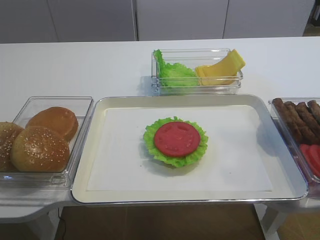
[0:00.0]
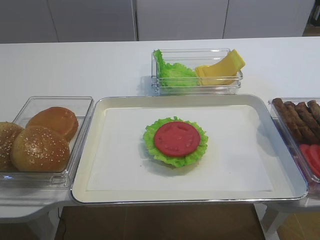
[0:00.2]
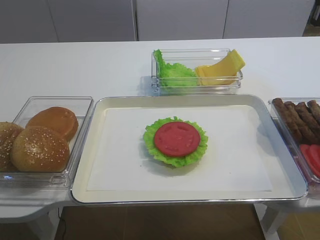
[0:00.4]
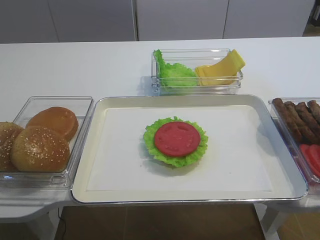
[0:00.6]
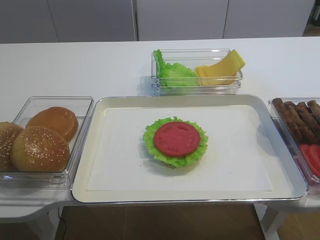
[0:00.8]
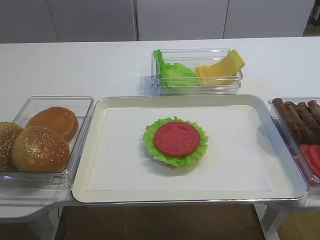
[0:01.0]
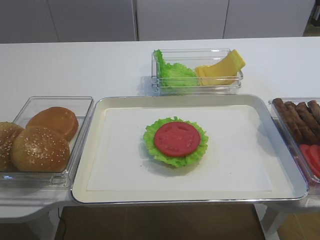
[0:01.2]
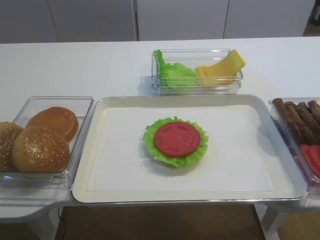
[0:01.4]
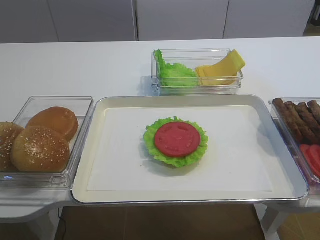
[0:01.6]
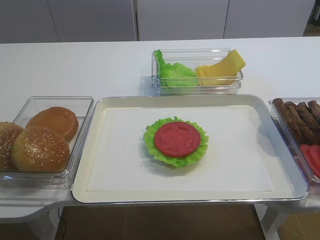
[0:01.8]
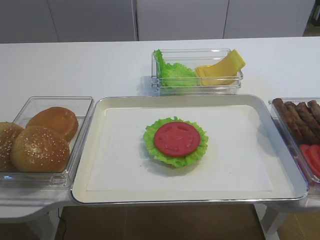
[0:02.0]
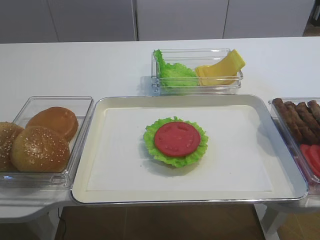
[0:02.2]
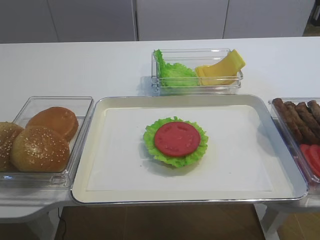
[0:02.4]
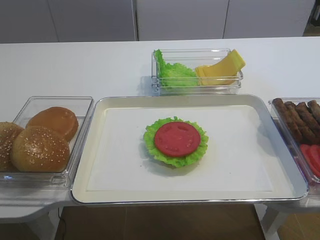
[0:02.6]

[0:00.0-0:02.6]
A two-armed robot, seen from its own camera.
0:01.2 to 0:02.6: Neither gripper changes place.

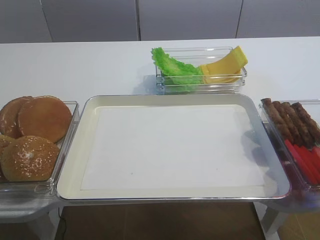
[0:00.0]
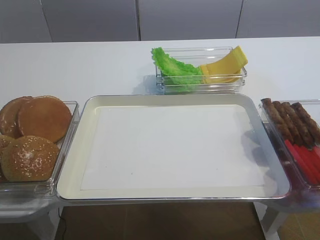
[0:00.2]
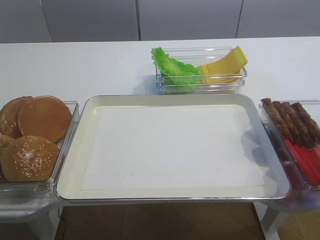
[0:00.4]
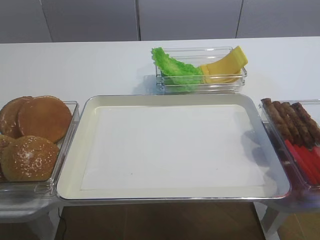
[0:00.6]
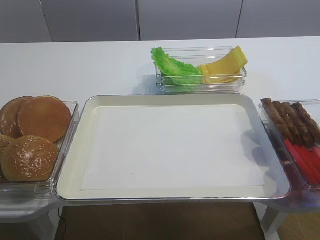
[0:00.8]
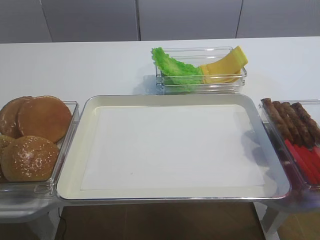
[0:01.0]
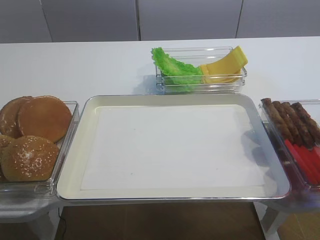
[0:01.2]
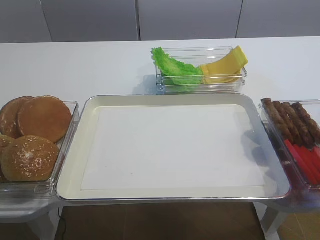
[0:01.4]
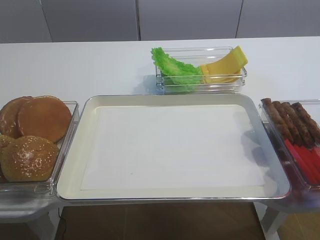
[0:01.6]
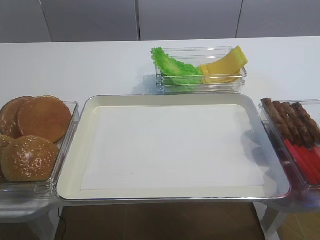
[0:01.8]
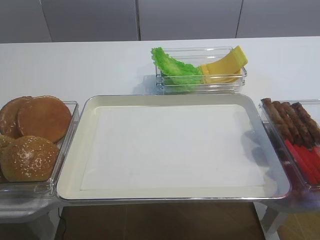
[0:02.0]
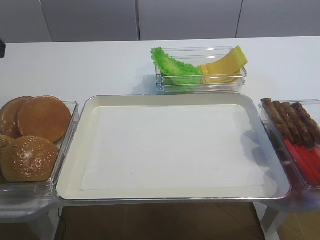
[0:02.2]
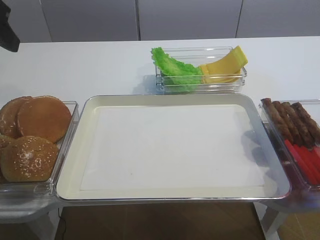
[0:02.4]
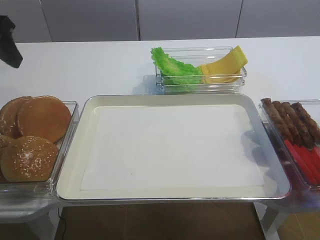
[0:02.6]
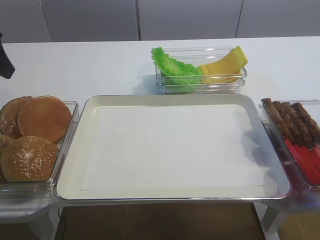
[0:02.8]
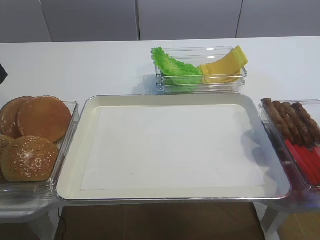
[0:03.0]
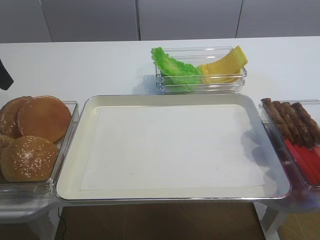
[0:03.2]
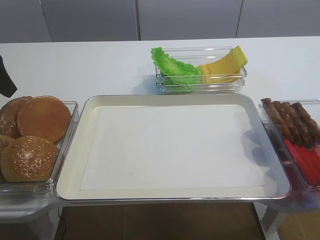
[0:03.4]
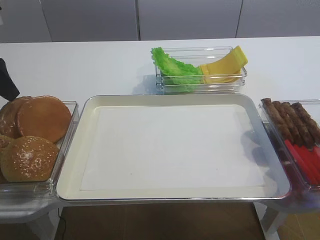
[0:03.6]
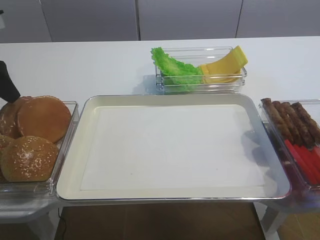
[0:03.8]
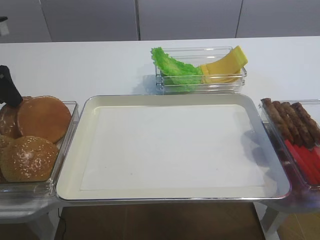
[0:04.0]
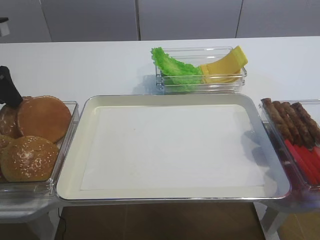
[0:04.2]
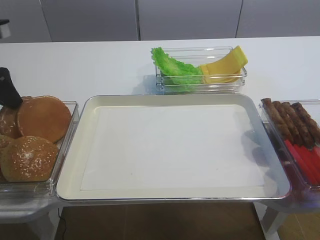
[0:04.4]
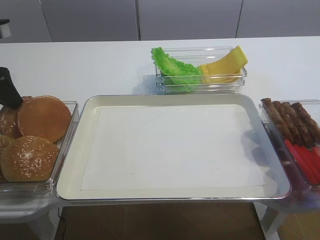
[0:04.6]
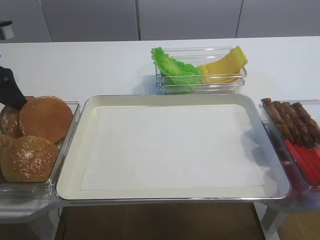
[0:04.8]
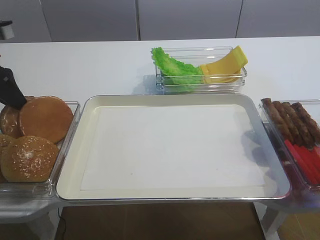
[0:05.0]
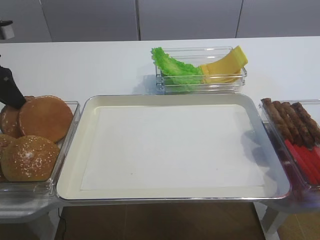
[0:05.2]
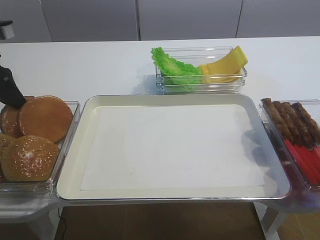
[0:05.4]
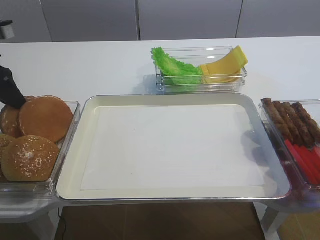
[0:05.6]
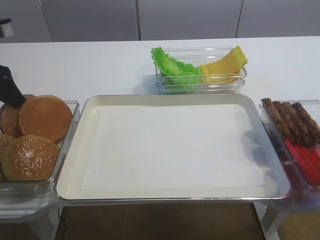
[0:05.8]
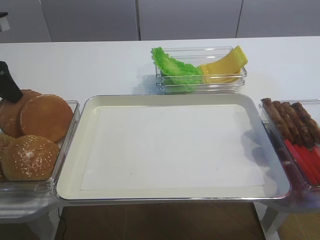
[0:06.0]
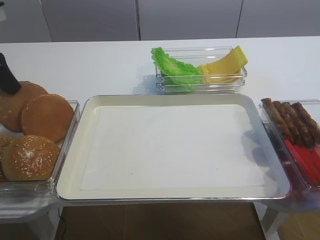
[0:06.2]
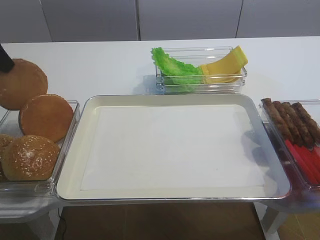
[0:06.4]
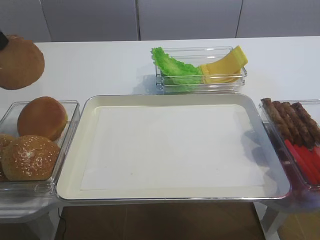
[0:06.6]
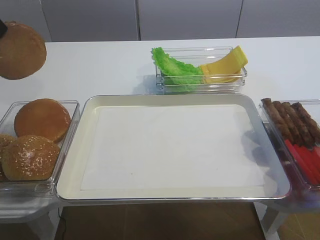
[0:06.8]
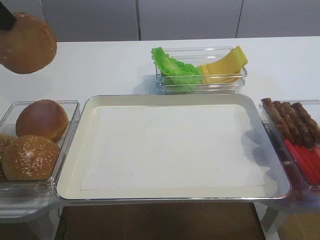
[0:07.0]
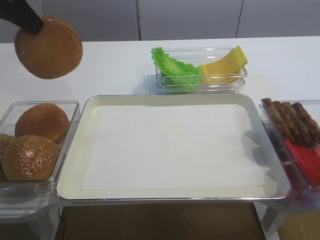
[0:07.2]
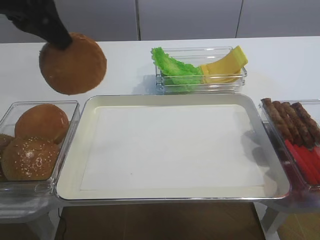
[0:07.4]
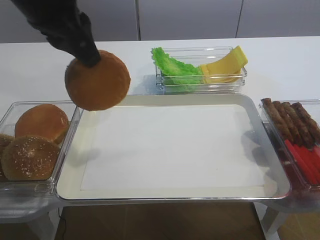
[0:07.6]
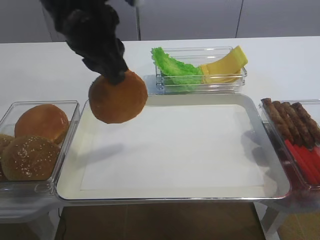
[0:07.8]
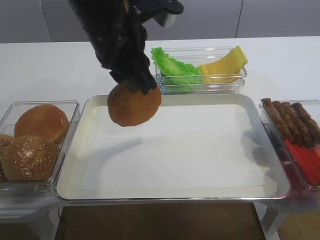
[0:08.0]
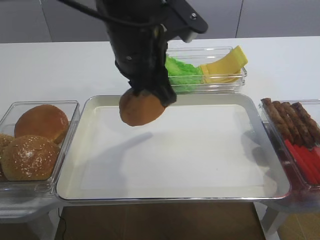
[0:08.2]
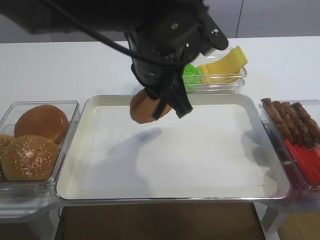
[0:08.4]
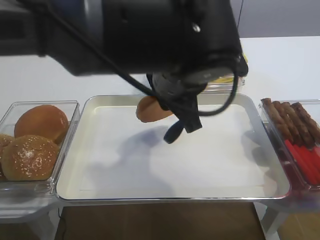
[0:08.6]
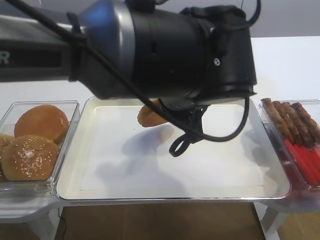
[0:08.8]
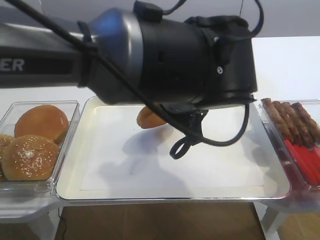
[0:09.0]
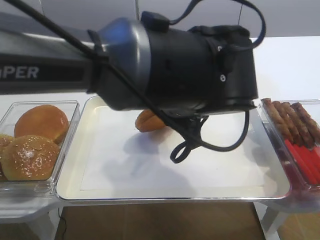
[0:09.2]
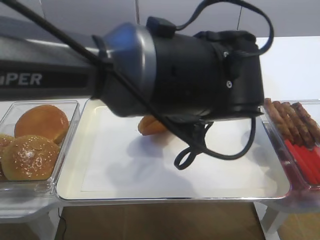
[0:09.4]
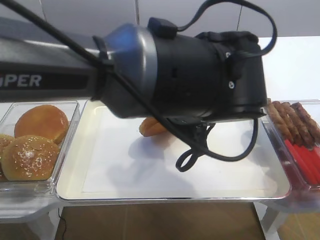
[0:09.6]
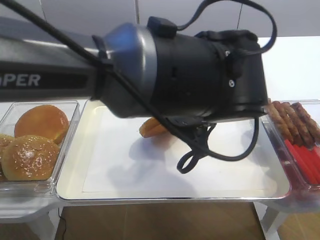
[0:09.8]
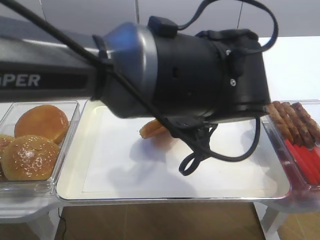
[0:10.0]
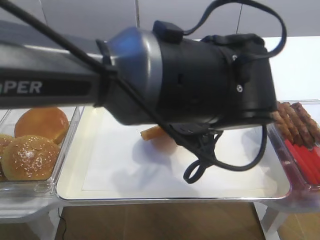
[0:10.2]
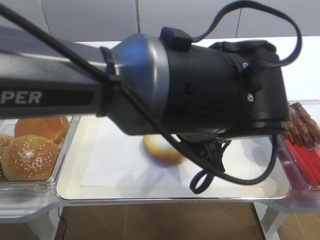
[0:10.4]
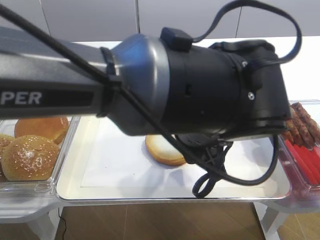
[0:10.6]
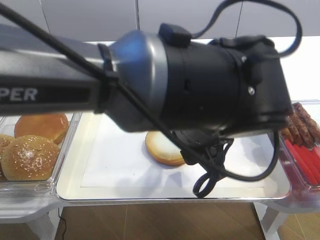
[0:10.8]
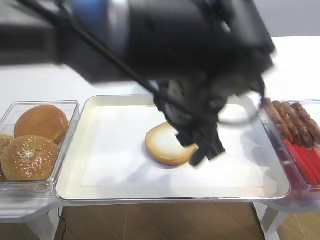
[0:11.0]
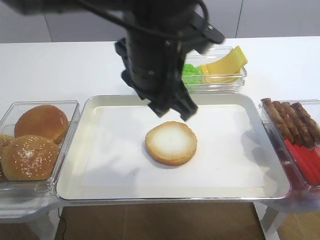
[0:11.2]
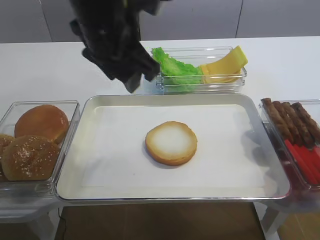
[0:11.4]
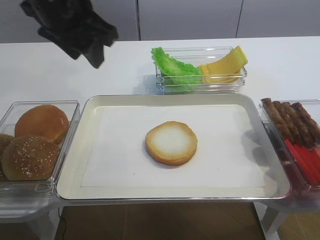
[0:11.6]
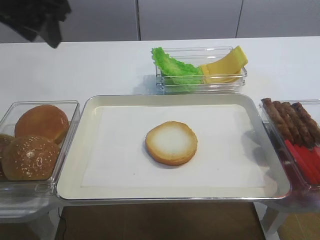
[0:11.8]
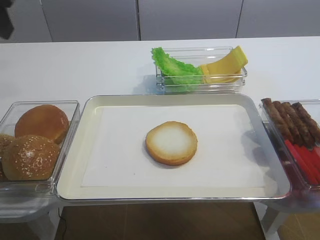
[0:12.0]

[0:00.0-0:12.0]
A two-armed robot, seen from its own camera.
Step, 0:00.0 to 0:06.4: Pick up the bread slice with the left gripper.
Step, 0:06.6 to 0:10.6: Place the bread slice on the tray with the left gripper.
0:03.0 to 0:04.4: The left gripper travels downward by about 5 cm.
0:04.4 to 0:06.0: The left gripper closes its fingers.
0:06.0 to 0:07.6: The left gripper travels to the right and upward by roughly 20 cm.
0:07.6 to 0:09.0: The left gripper shifts approximately 20 cm to the right and downward.
0:09.0 to 0:10.4: The left gripper opens.
0:10.4 to 0:12.0: The left gripper travels to the left and upward by about 35 cm.

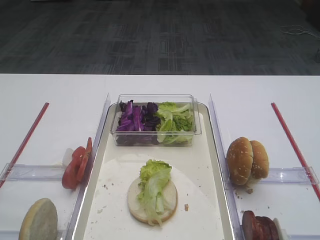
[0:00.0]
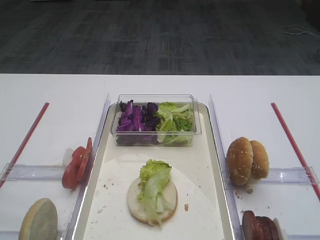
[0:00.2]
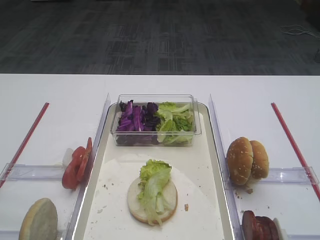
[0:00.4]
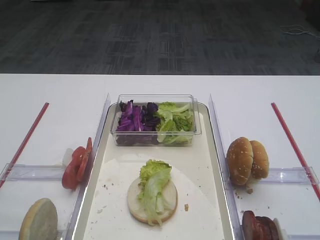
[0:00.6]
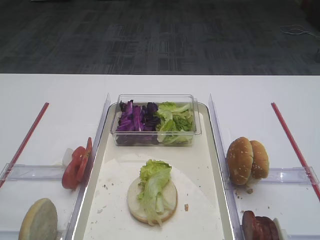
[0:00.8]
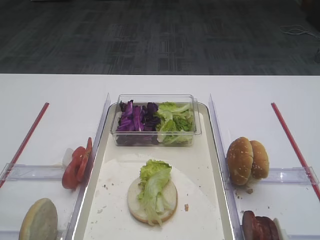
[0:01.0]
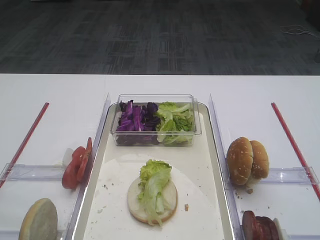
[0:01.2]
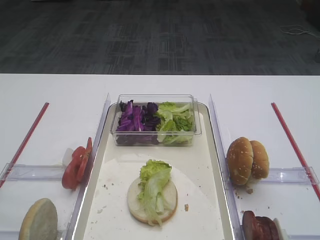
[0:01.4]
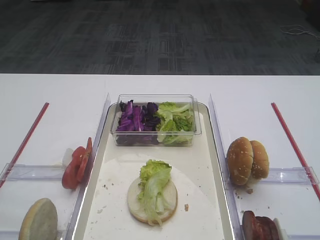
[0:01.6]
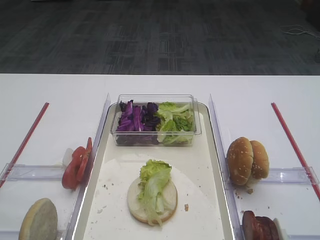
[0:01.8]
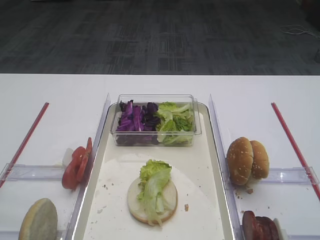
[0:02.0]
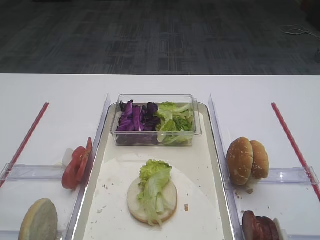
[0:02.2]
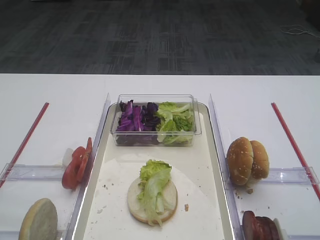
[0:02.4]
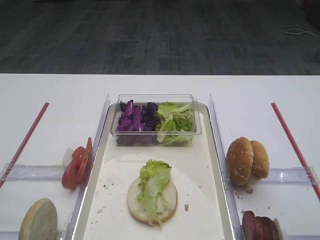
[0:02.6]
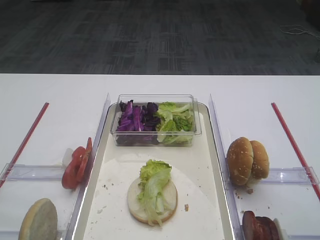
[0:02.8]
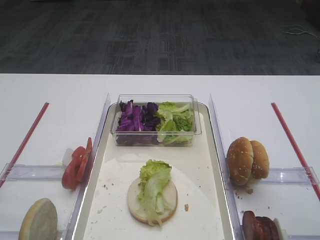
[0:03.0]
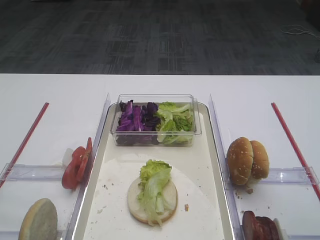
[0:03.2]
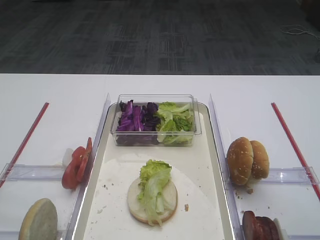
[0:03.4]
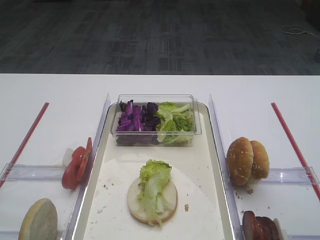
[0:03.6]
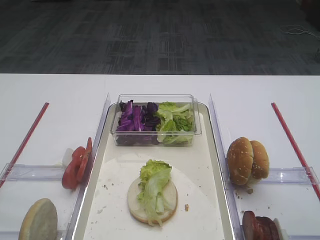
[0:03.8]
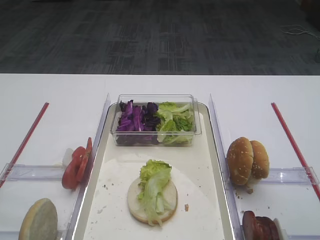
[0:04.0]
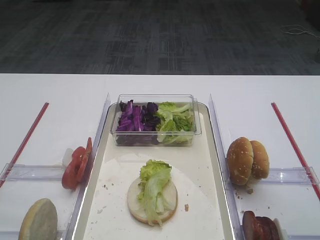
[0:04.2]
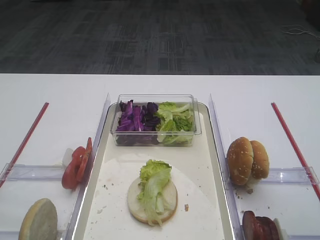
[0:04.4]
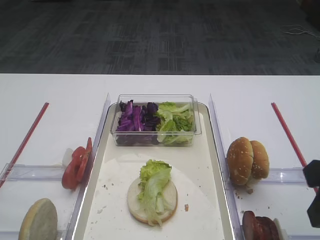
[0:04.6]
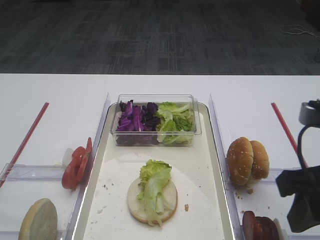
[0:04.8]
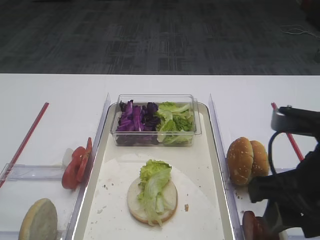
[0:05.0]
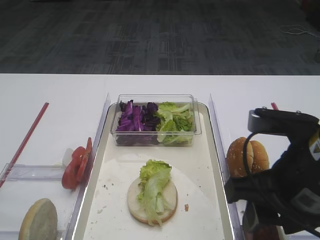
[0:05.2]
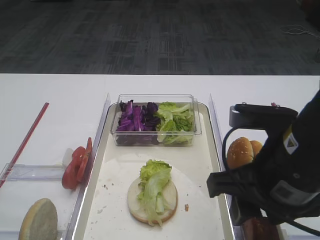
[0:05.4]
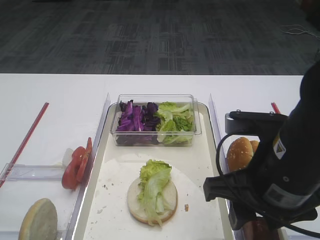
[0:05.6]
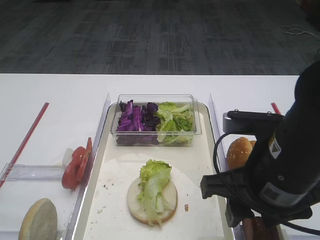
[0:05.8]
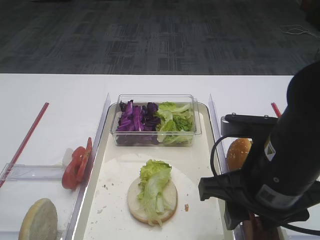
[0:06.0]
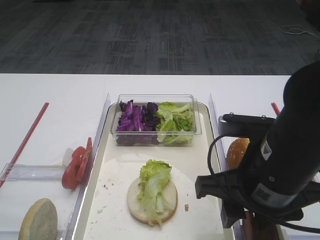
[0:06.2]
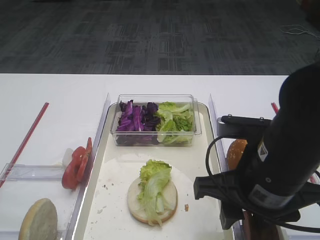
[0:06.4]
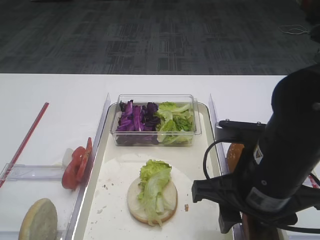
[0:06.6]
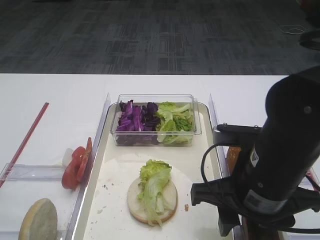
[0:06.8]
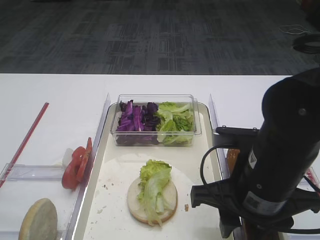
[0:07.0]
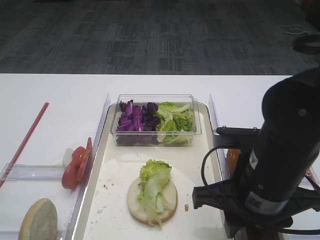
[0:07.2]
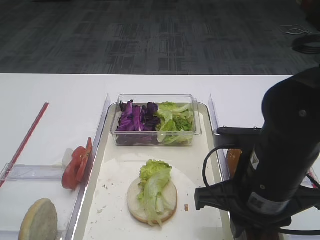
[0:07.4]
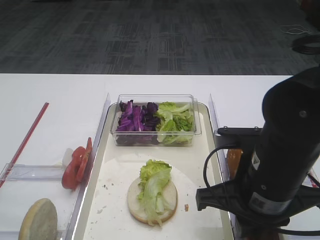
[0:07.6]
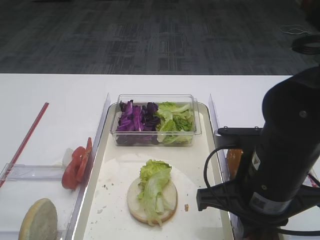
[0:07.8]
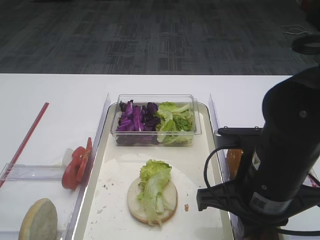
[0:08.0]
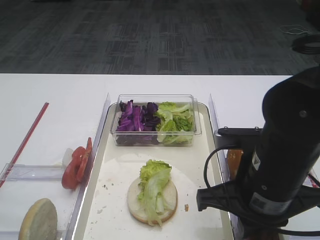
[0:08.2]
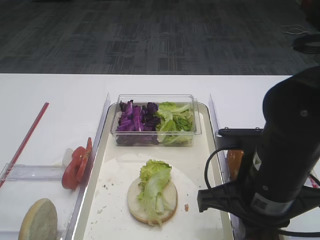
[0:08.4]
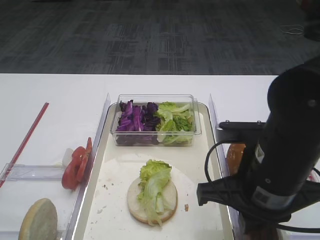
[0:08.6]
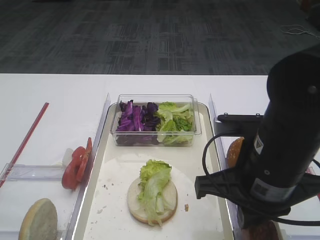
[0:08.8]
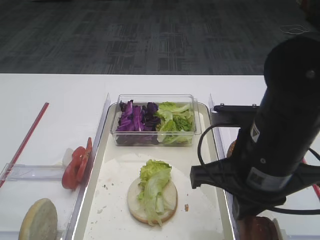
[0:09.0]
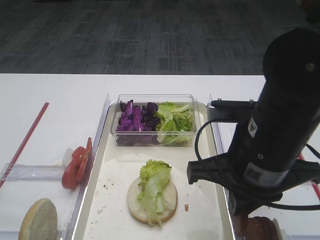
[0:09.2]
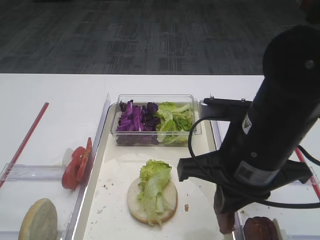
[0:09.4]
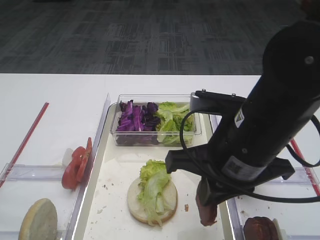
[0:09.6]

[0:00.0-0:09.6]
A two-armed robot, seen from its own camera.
Step, 0:00.0 to 0:09.4: Pick up the cutlet with the right gripper.
0:03.2 to 0:04.8: The right gripper heads to the left, covering approximately 5 cm.
0:04.8 to 0:06.4: The right gripper travels to the left by about 10 cm.
0:06.4 to 0:08.0: The right gripper closes its fingers.
0:08.0 to 0:09.6: The right gripper ends up approximately 5 cm from where it was.
